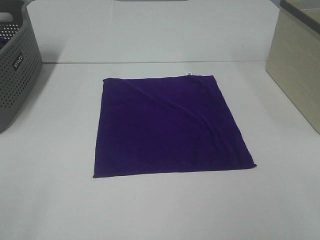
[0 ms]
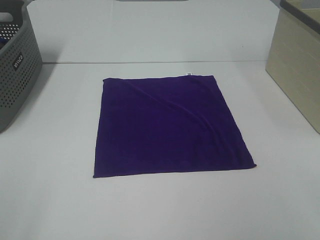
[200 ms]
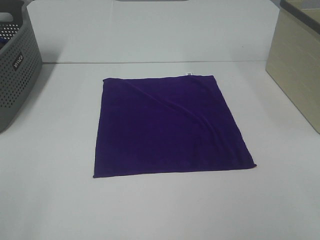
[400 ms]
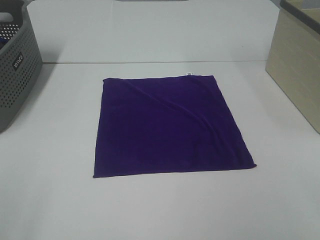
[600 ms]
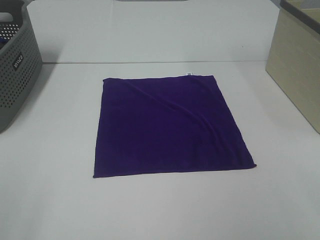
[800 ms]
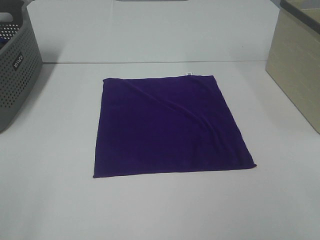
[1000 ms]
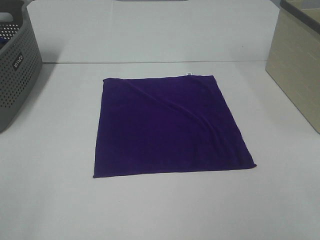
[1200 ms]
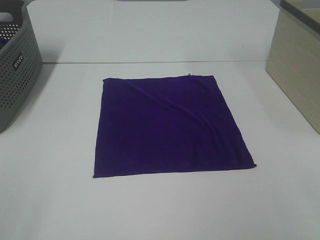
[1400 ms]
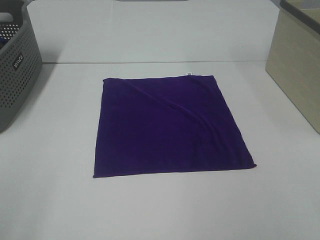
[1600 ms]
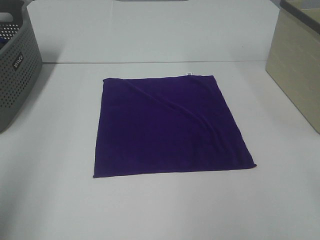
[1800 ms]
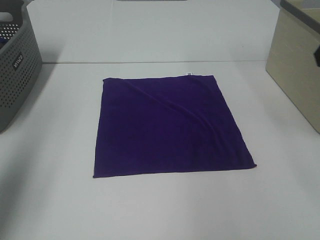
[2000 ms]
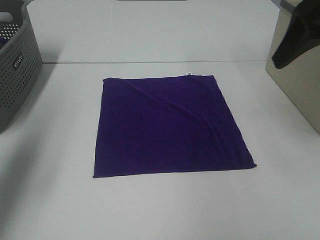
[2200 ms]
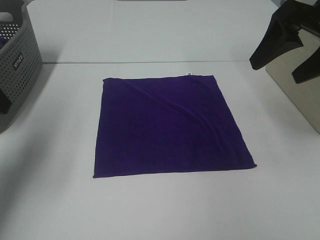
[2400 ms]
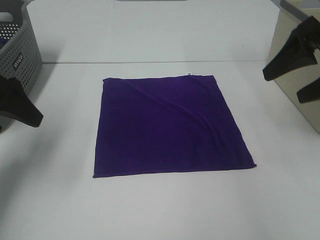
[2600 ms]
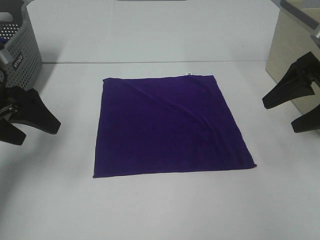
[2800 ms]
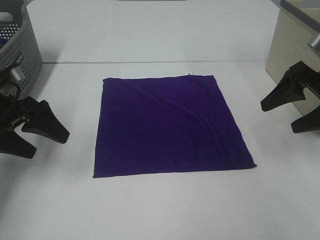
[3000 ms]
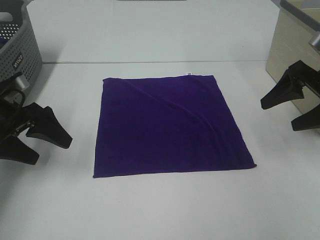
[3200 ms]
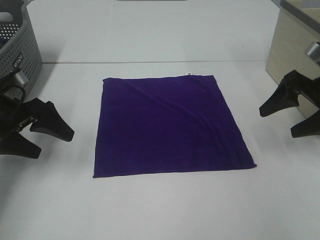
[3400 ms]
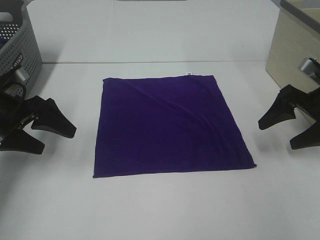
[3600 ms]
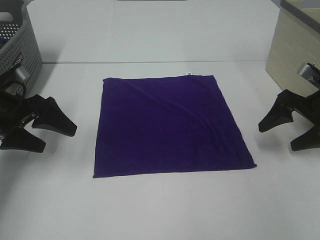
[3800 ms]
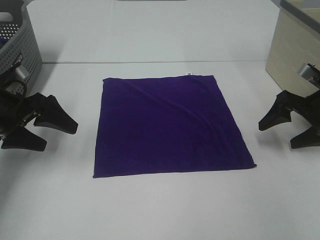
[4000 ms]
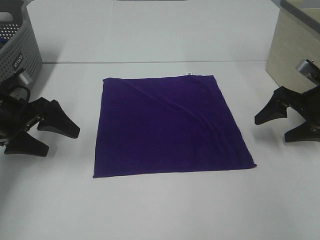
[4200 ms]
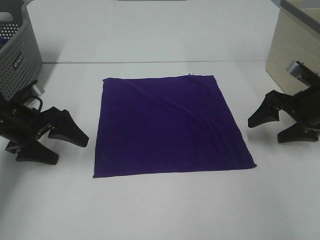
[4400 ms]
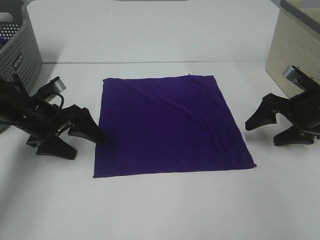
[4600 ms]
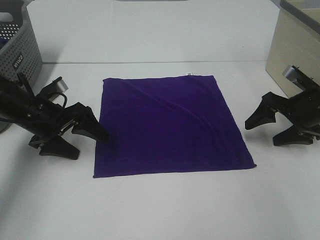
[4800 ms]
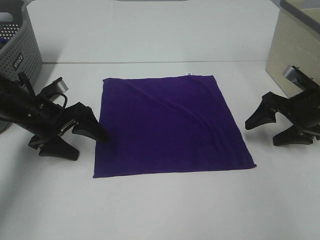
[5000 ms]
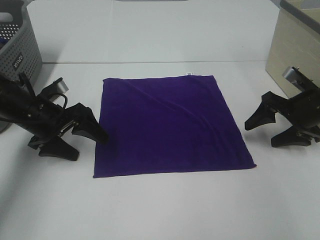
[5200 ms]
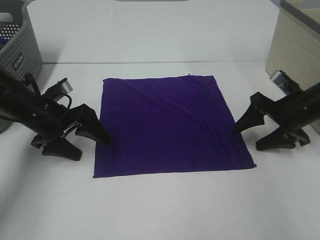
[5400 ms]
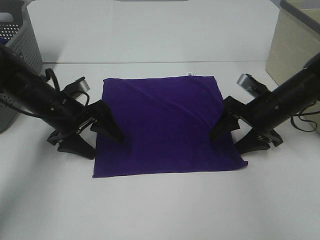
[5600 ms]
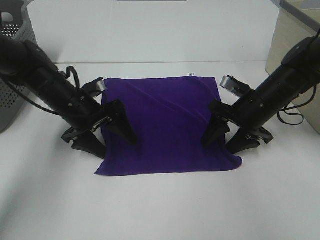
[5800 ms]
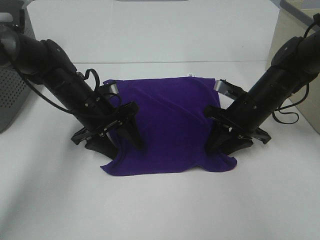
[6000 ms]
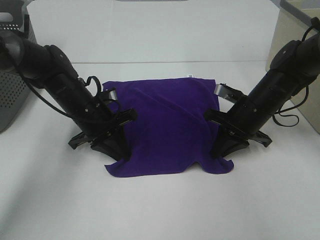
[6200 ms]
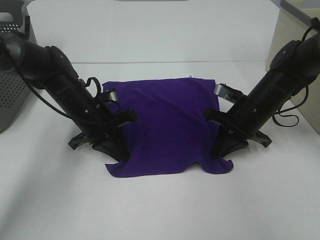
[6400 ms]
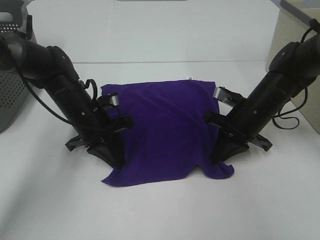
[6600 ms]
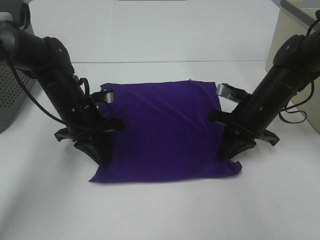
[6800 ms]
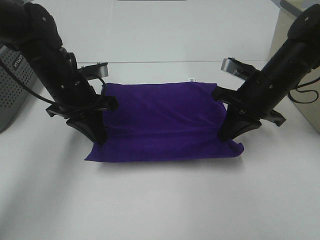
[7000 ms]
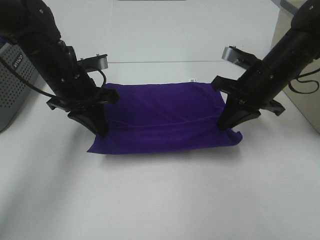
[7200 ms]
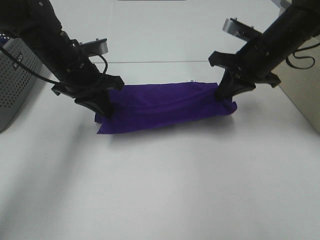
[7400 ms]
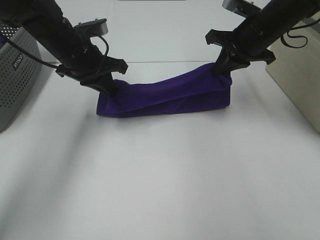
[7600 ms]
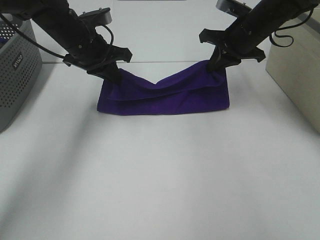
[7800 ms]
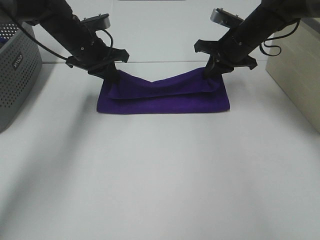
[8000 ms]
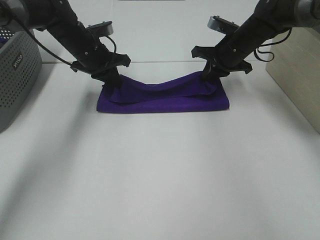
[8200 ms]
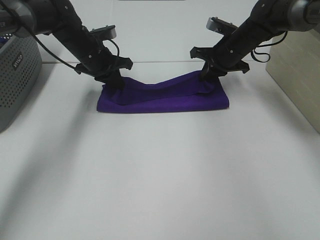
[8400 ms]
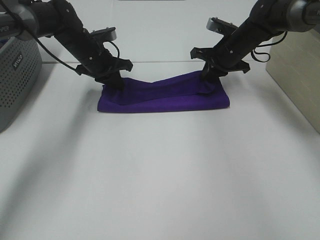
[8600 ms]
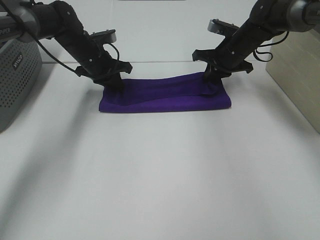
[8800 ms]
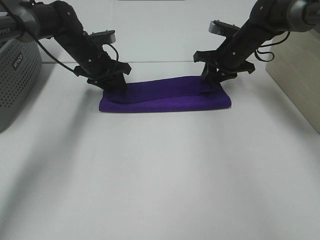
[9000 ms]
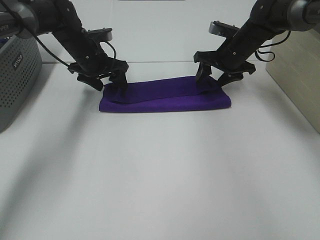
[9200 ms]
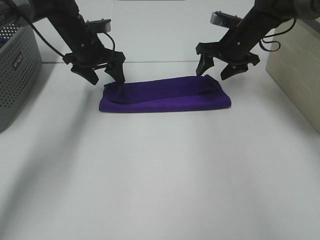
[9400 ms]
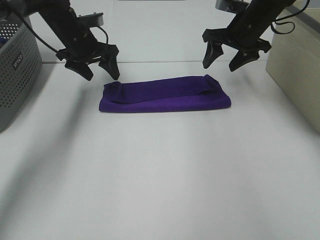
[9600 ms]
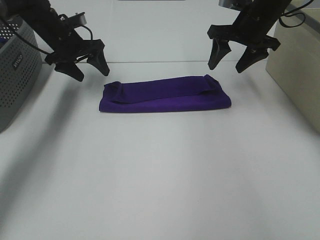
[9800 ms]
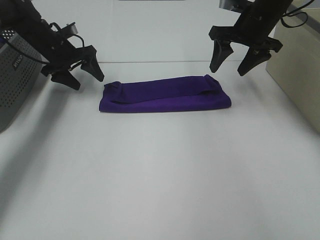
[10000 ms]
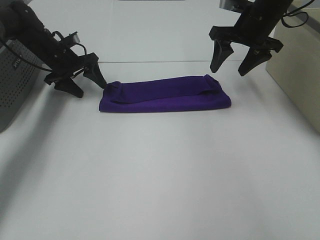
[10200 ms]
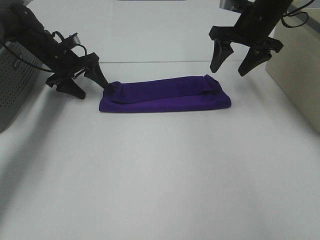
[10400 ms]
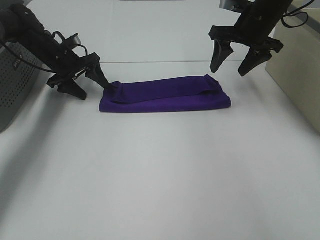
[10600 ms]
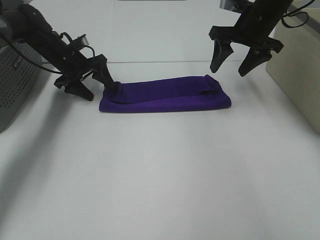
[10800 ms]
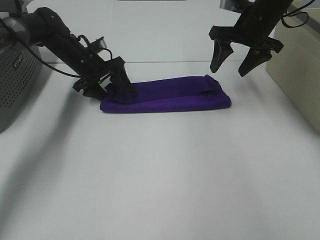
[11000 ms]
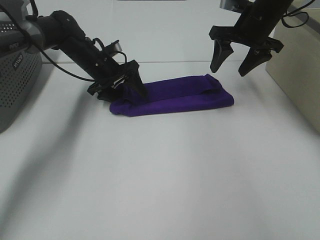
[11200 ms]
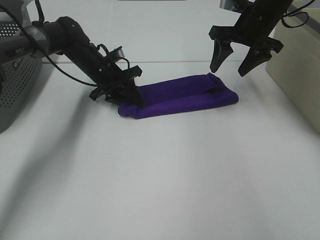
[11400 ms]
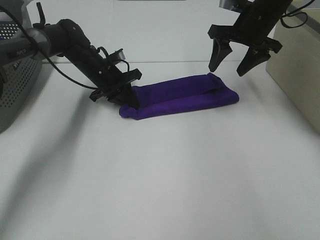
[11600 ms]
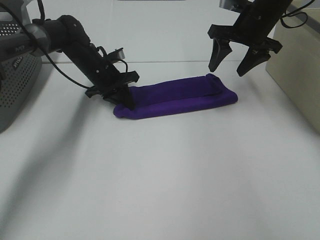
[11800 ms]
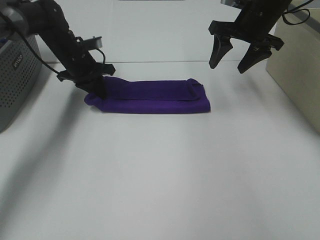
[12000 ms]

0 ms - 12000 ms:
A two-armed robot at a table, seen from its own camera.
Task of the whole recording: Fold towels.
Step, 0 ms - 6600 ms: Left hand: grab the bottom left corner of purple towel.
Step, 0 ms - 6600 ms: Right hand: grab the bottom right corner of purple towel.
Step, 6800 ms - 8800 ms: Left hand: fold the purple towel up.
Step, 6800 ms - 8800 ms: Right hand: fold the purple towel up.
1600 ms - 3000 ms: The two grippers go about 30 cm forward and downward.
3000 ms - 4400 ms: The right gripper travels downward by approximately 5 cm, while the left gripper moves roughly 5 cm.
4400 ms - 6000 ms: The left gripper shifts about 10 cm to the right, and closes. Meanwhile the right gripper travels to the left by some 10 cm, and closes up.
6000 ms - 7600 ms: The left gripper moves upward, approximately 10 cm, and closes up, while the right gripper is displaced upward and forward by about 15 cm, and closes its fingers.
7600 ms - 9000 ms: The right gripper travels downward and forward by about 10 cm, and opens; the left gripper is displaced forward and downward by about 10 cm, and opens.
9000 ms - 10400 ms: The right gripper shifts roughly 10 cm upward; the left gripper moves to the left, approximately 10 cm.
10400 ms - 12000 ms: The left gripper closes.

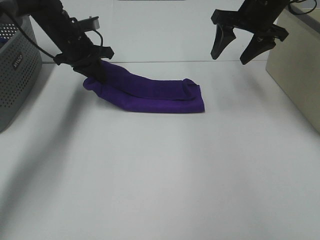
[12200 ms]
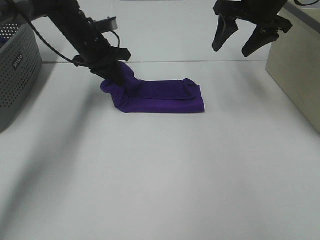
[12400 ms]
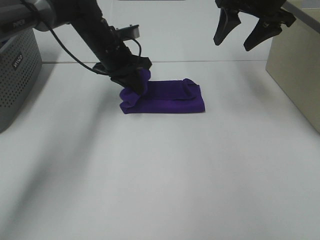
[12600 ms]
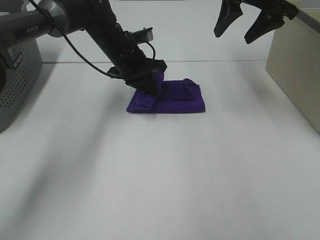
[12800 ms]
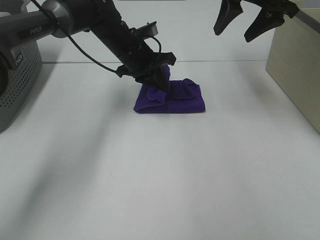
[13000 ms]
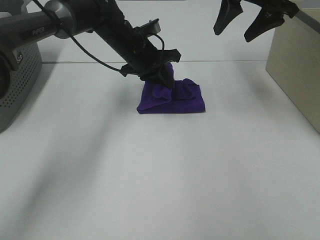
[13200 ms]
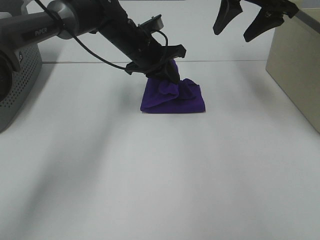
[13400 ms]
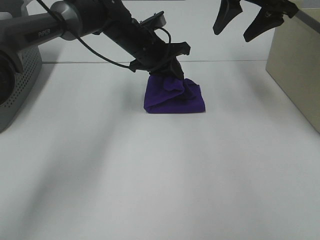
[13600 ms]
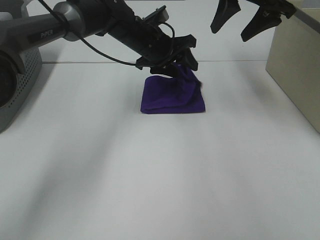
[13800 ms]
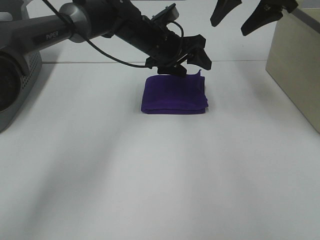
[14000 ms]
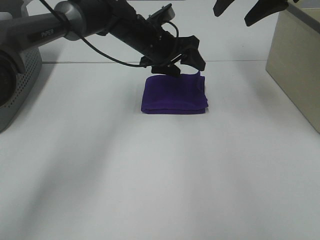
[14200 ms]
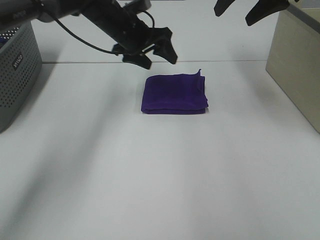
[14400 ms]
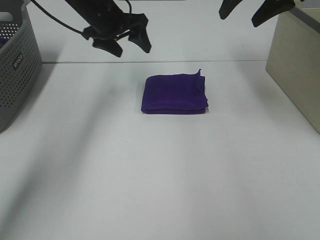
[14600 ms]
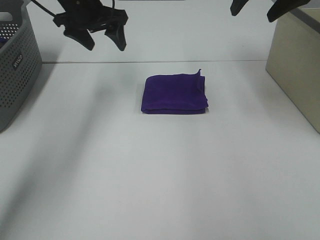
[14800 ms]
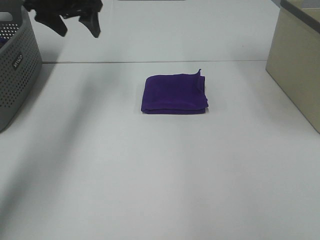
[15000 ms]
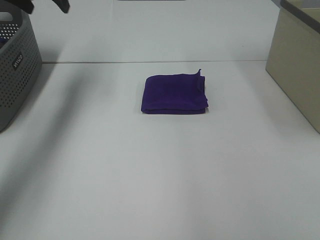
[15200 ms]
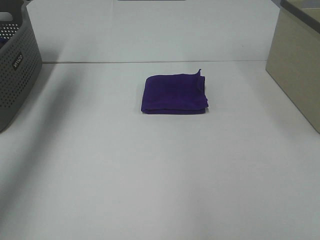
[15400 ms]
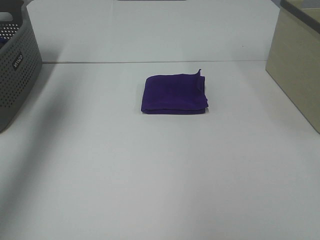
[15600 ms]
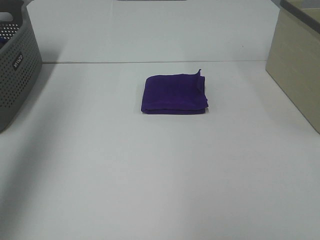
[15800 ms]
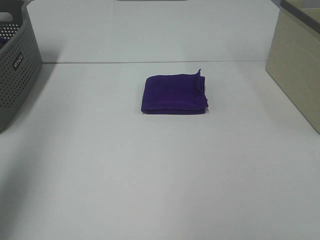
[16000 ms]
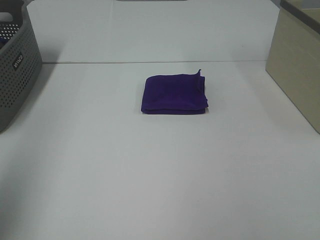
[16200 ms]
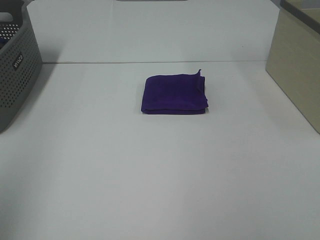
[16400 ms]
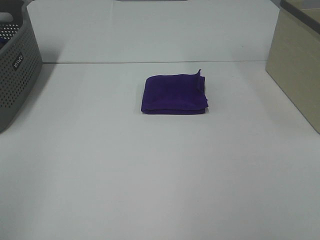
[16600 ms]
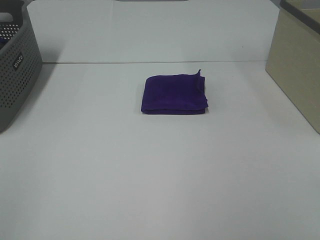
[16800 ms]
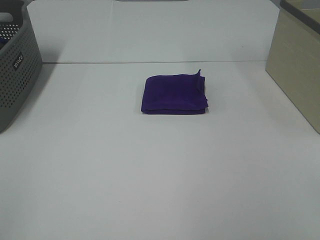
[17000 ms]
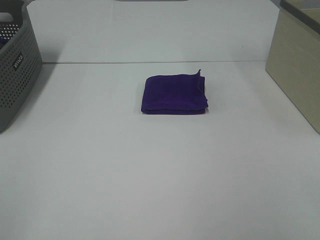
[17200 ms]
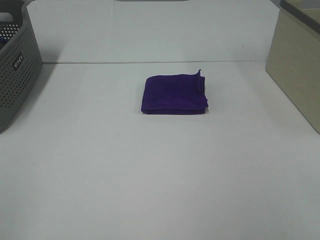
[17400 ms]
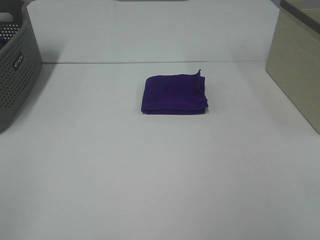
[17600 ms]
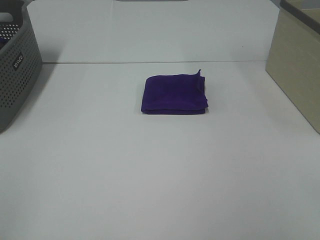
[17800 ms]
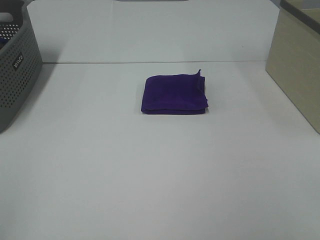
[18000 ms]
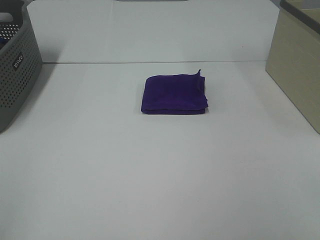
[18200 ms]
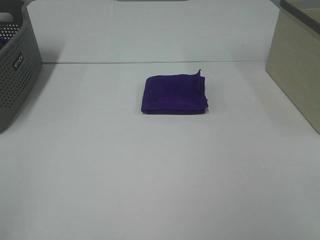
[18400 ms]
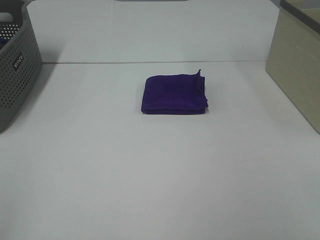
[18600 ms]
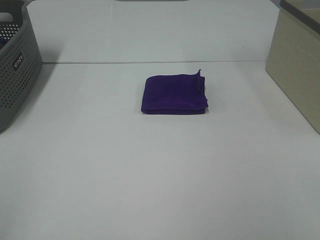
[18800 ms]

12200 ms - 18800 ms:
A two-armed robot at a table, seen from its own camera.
Task of the whole recording: Fold towels.
12200 ms - 13800 ms: The left gripper shifts approximately 15 cm to the right, and opens up; the right gripper changes place by about 5 cm.
13800 ms - 15400 ms: The right gripper is displaced backward and upward by approximately 25 cm, while the left gripper heads to the left and upward, covering some 35 cm.
15400 ms - 17200 ms: The left gripper heads backward, covering roughly 40 cm.

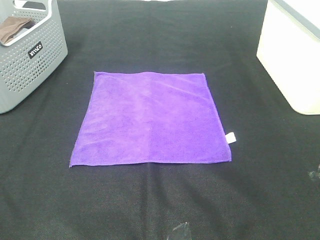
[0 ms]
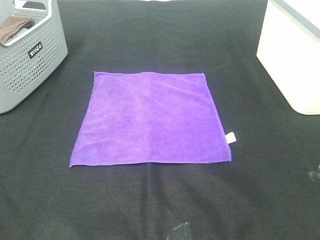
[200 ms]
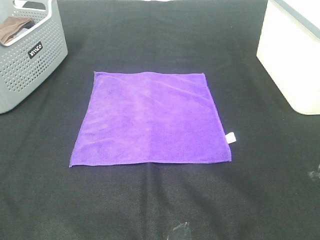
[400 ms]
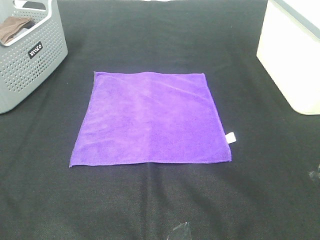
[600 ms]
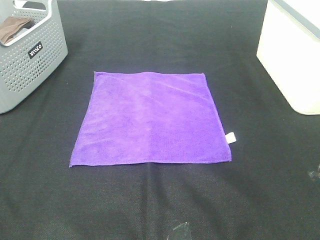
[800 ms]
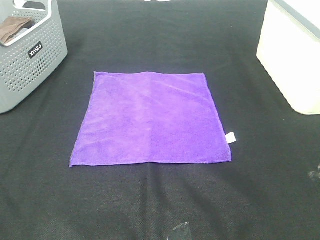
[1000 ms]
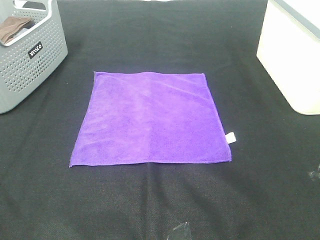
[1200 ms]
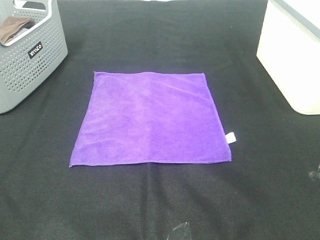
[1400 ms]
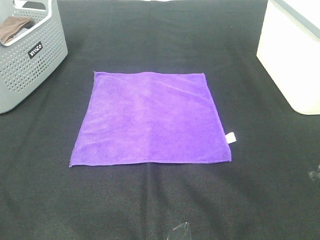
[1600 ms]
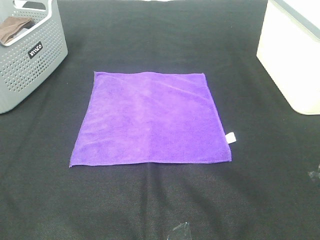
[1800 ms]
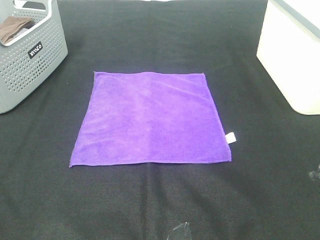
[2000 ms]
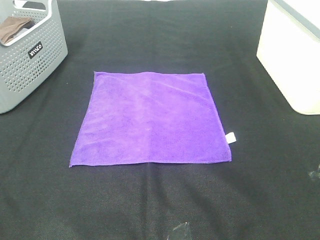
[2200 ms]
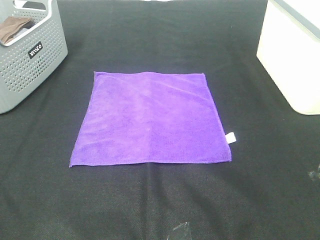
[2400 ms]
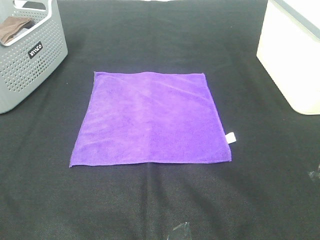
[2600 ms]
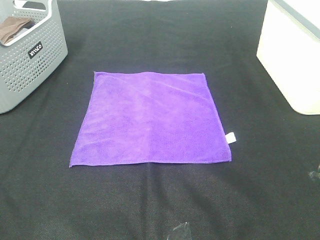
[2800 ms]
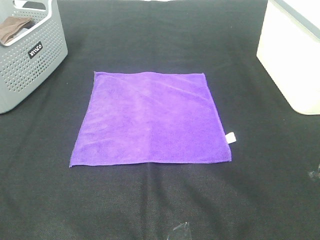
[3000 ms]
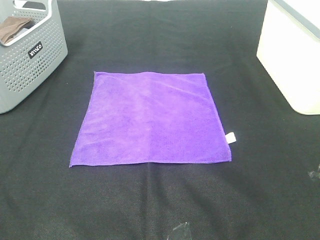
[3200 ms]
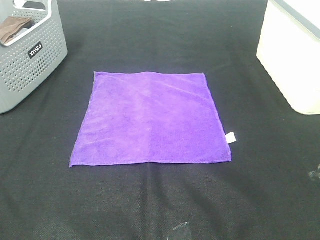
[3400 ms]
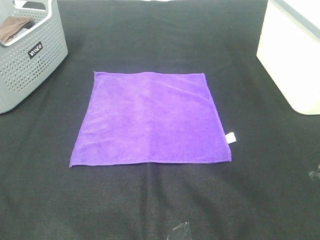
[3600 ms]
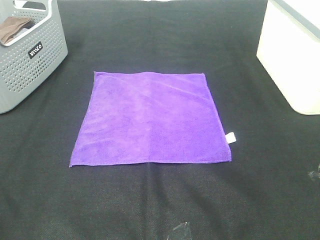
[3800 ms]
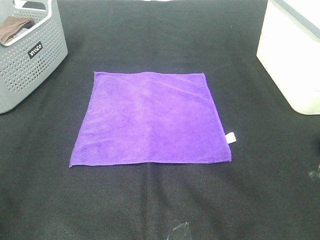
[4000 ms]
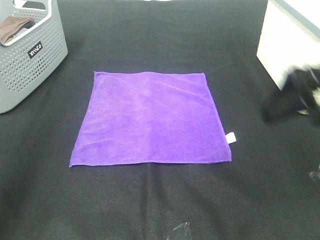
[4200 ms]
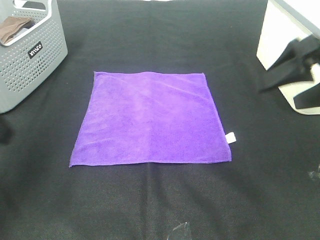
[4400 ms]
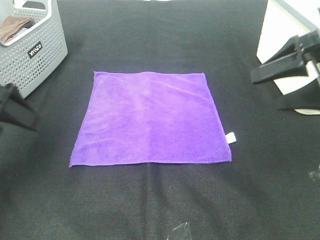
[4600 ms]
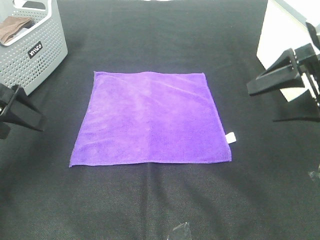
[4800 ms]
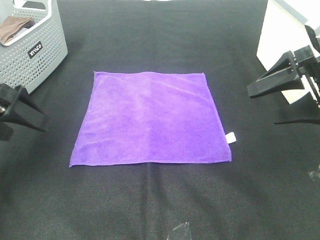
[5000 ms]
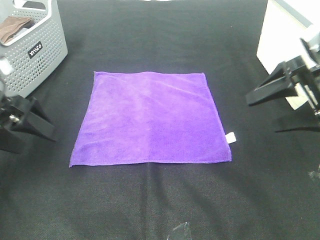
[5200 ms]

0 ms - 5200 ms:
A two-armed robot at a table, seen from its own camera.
Task of the whole recording: Fold towels.
0 ms - 3400 ms: Both grippers stay about where they are.
3400 ms - 5200 ms: The two grippers go some 30 cm forward.
